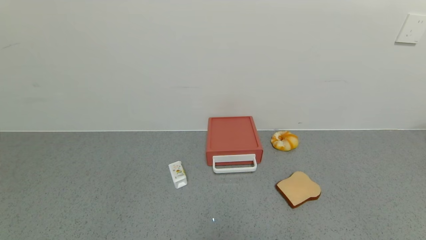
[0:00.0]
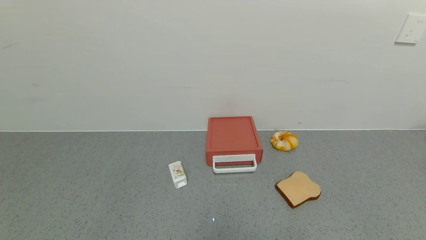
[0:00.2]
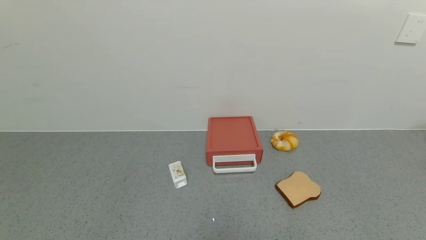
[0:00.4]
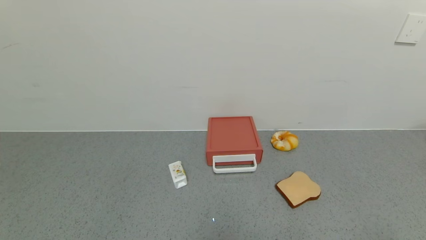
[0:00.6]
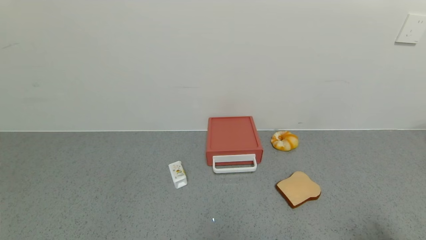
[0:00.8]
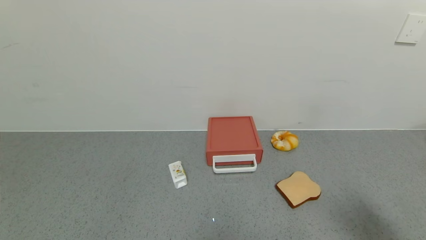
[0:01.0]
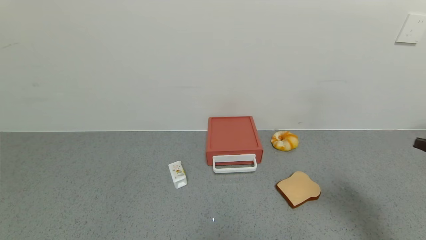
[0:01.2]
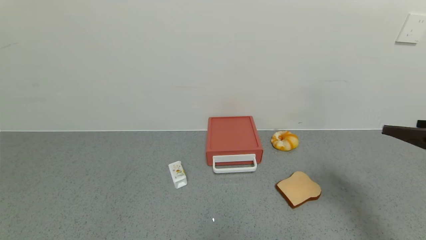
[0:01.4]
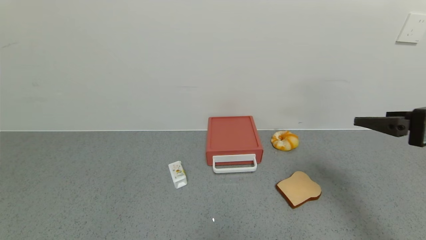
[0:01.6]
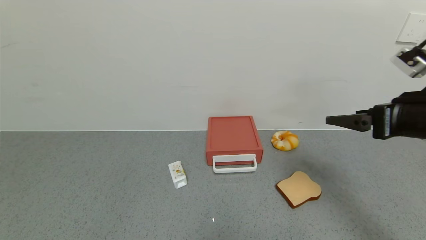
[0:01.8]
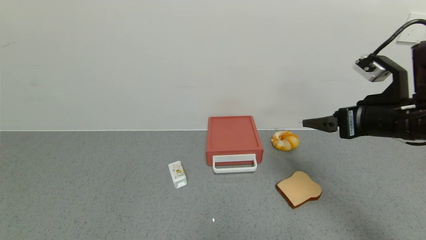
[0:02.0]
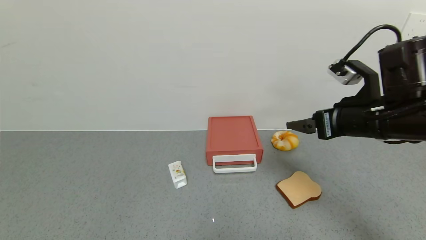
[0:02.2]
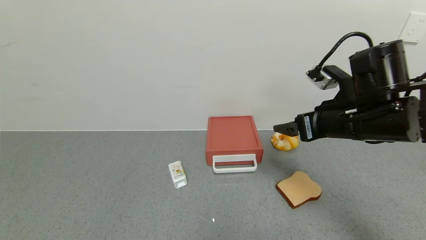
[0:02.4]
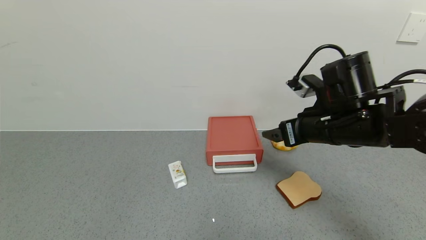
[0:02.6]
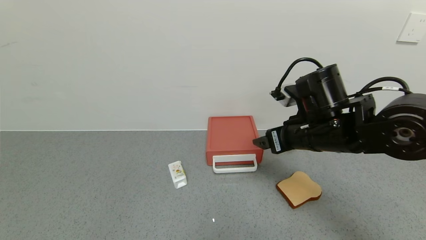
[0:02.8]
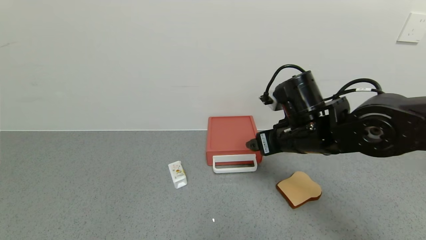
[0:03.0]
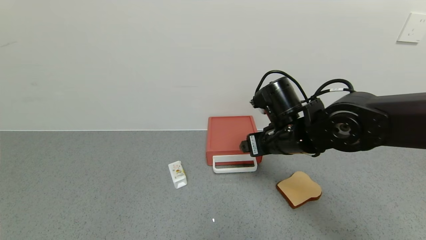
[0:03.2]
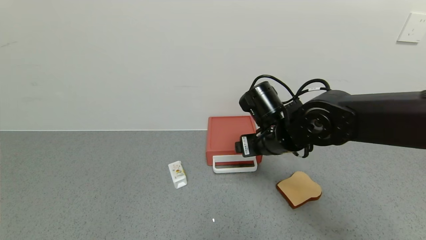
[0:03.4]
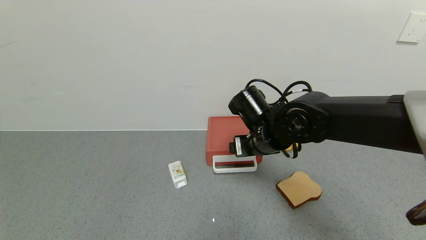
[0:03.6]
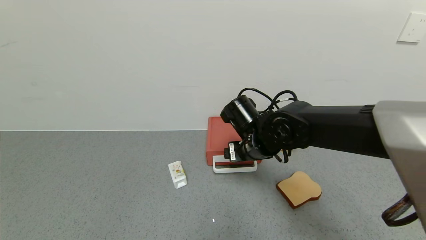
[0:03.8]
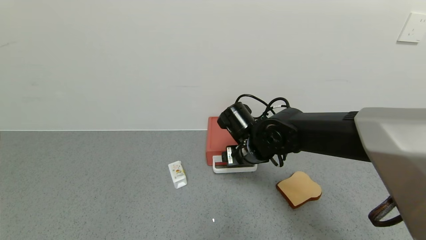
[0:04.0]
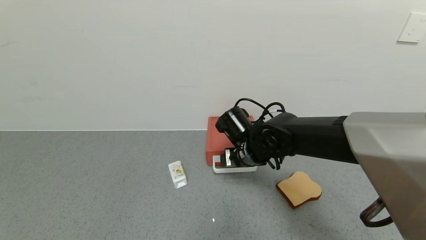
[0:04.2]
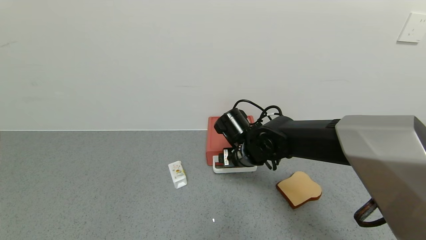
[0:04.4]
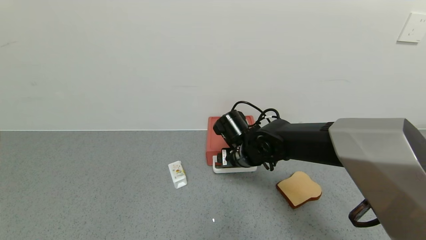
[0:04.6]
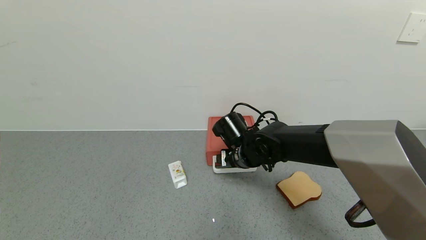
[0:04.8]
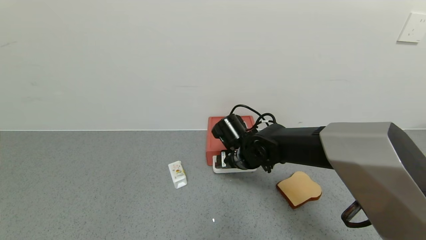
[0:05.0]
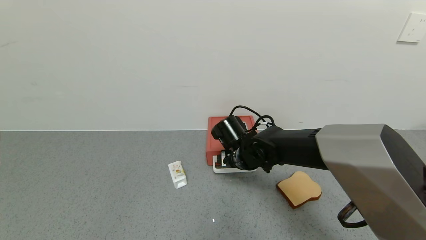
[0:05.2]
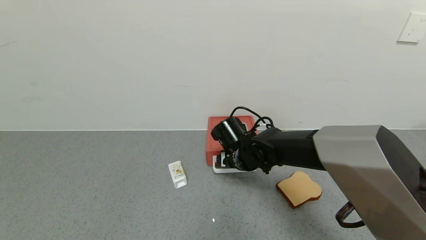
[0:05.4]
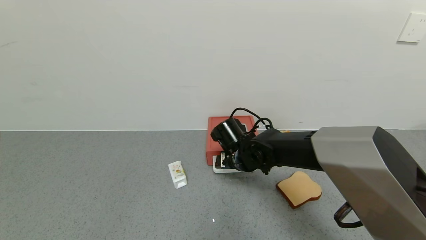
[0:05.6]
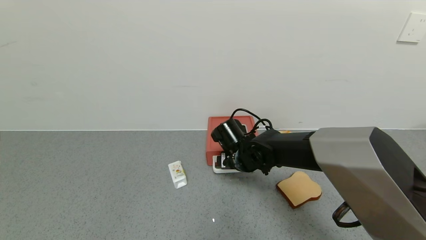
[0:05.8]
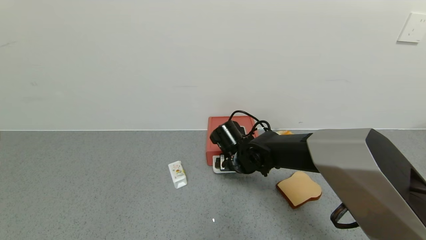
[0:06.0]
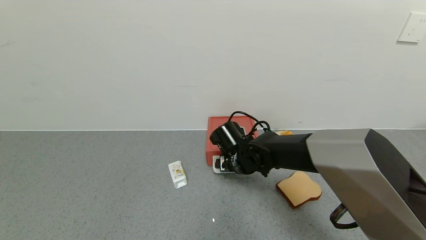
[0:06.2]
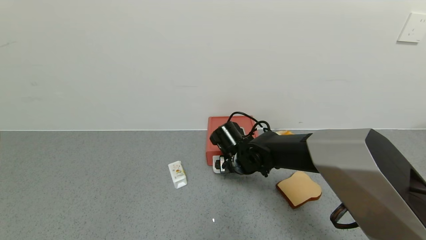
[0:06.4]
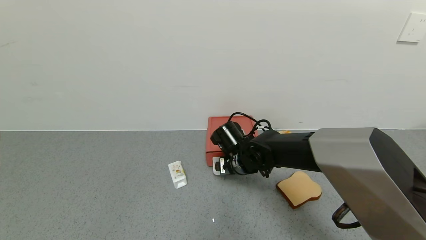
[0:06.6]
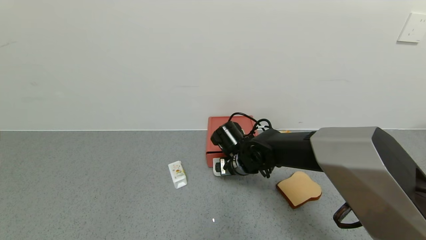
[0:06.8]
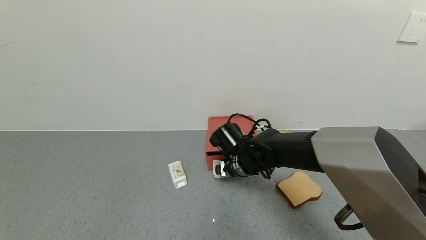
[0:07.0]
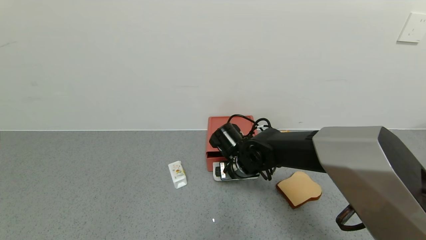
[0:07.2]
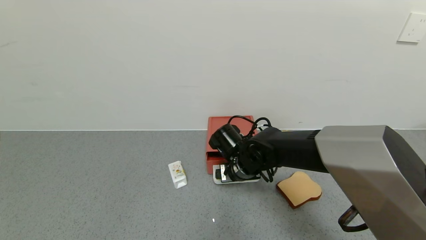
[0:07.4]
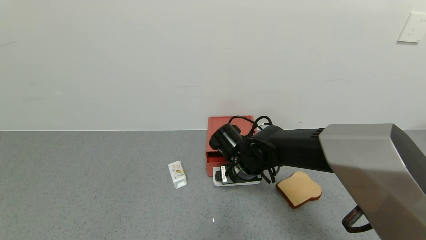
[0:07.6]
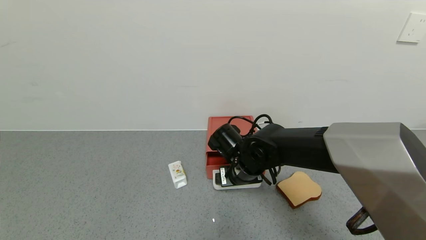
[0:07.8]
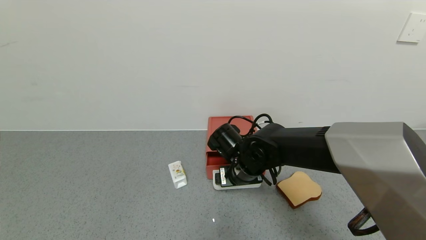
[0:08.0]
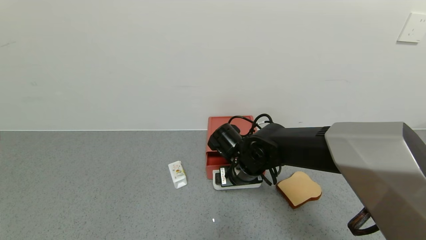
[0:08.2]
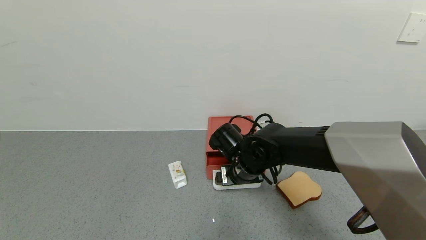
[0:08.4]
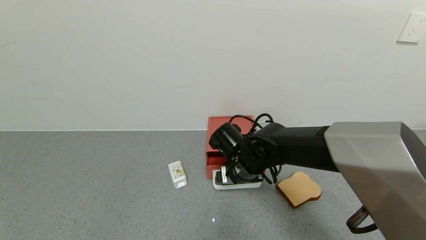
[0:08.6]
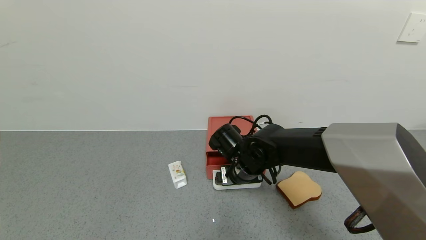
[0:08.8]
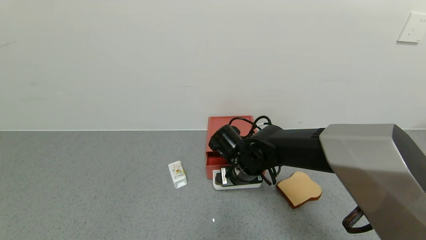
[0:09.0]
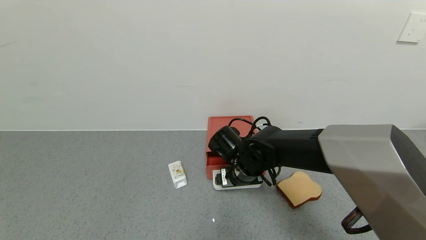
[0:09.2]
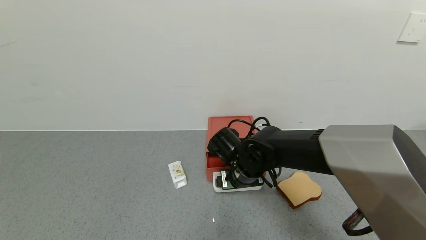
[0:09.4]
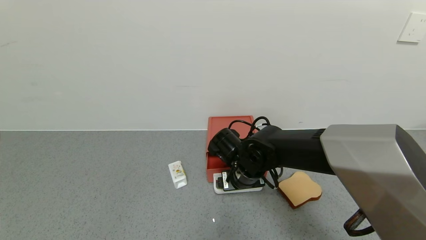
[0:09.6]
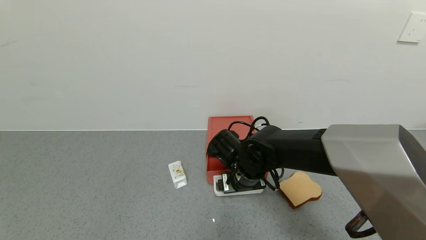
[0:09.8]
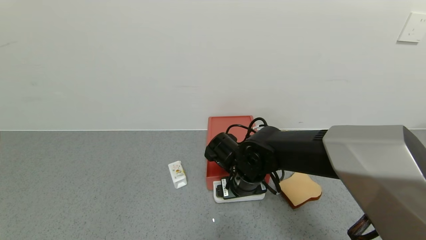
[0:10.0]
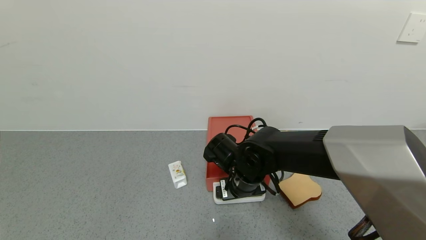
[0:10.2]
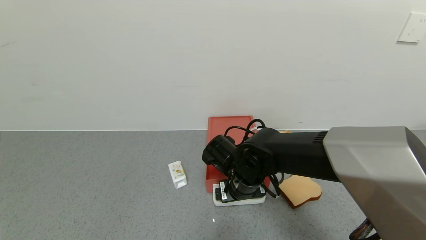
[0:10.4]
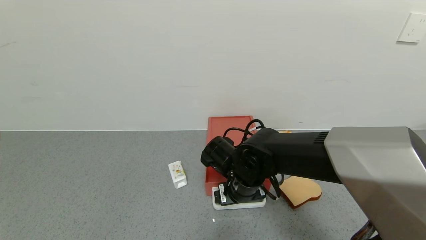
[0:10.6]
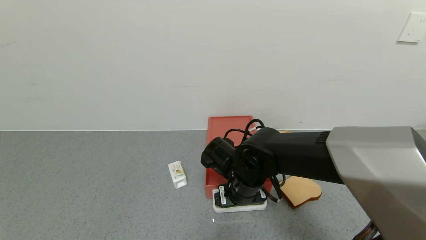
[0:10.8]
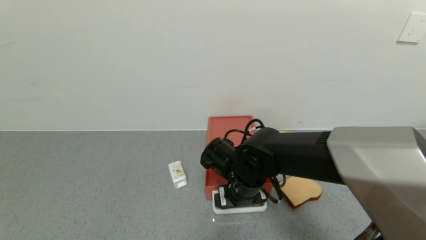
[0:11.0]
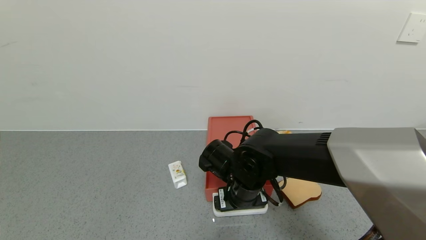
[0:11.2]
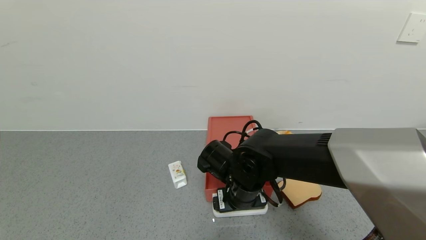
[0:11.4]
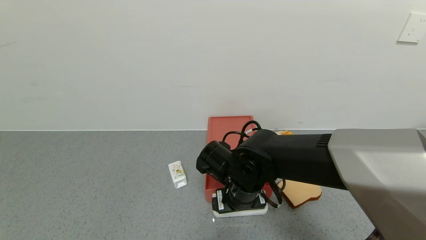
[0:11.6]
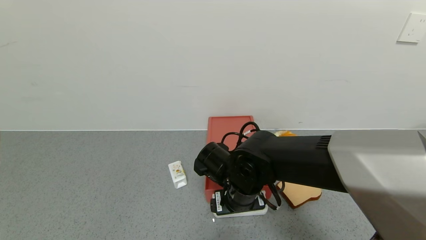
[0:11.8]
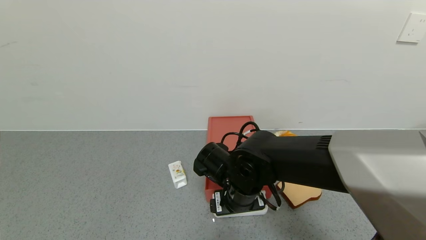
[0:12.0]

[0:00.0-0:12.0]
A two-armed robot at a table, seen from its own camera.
Task of the whole recording: use the gripper to open the drawer and close the red drawer.
0:00.0 to 0:01.6: The right gripper moves forward and upward, about 30 cm.
0:01.6 to 0:03.0: The right gripper heads to the left and forward, covering approximately 20 cm.
0:03.0 to 0:04.4: The right gripper is displaced to the left, downward and forward by roughly 15 cm.
0:04.4 to 0:07.6: The grippers move only a little.
0:07.6 to 0:09.0: Both grippers stay about where they are.
0:09.0 to 0:10.4: There are only small adjustments of the grippers.
0:10.4 to 0:12.0: The grippers stay close to where they were, moving slightly.

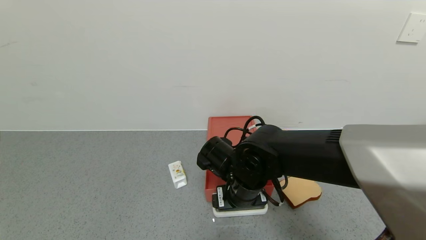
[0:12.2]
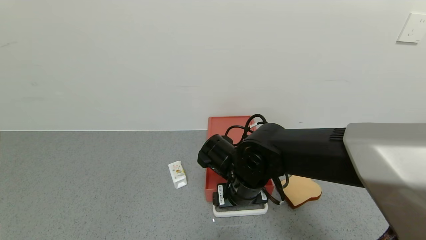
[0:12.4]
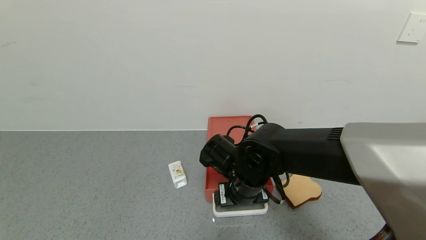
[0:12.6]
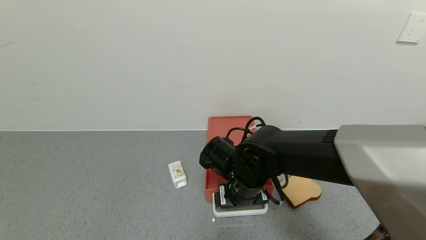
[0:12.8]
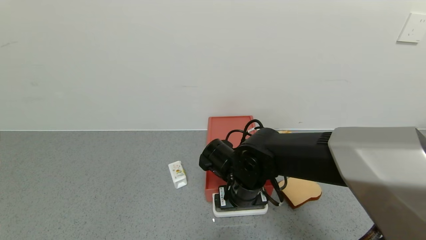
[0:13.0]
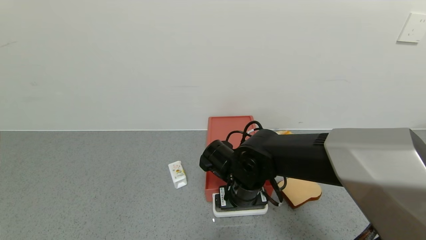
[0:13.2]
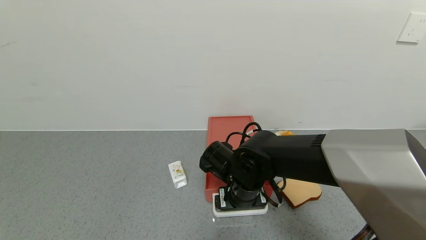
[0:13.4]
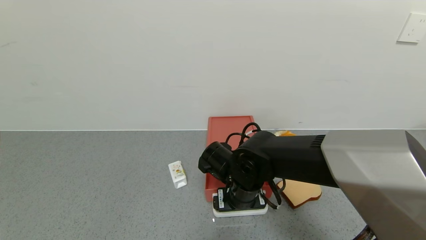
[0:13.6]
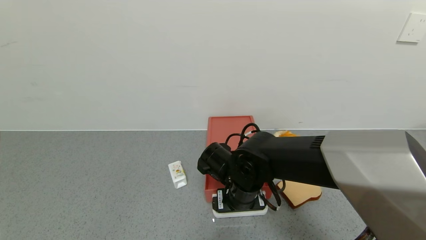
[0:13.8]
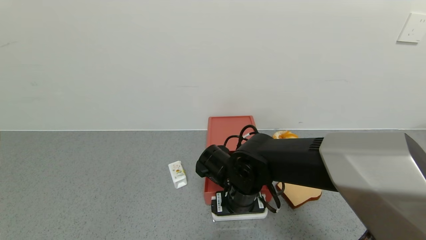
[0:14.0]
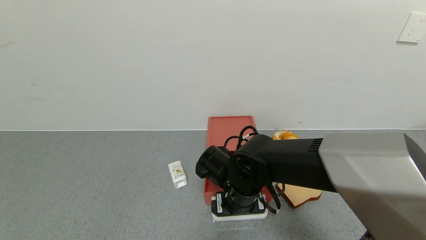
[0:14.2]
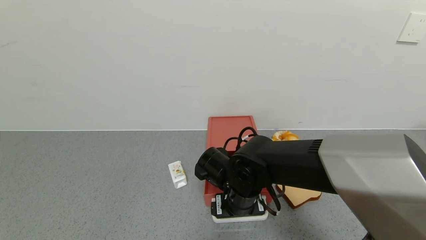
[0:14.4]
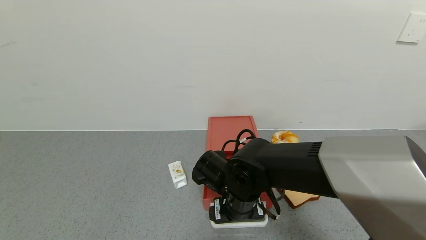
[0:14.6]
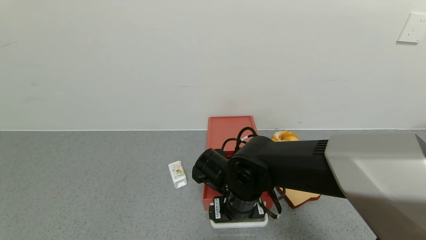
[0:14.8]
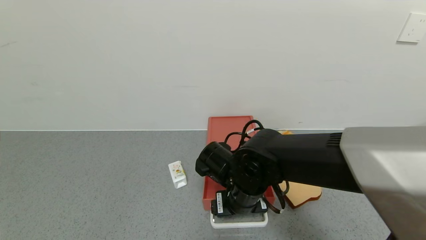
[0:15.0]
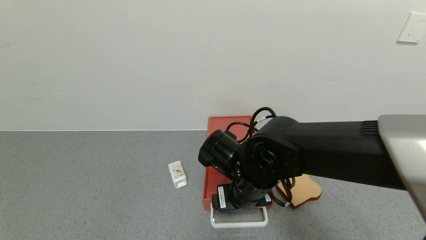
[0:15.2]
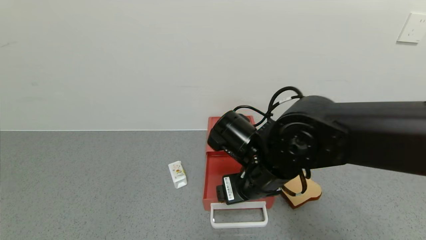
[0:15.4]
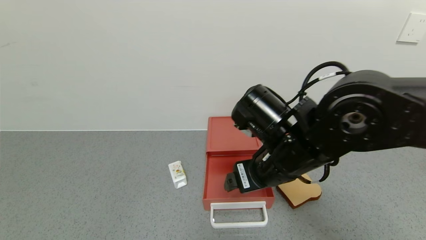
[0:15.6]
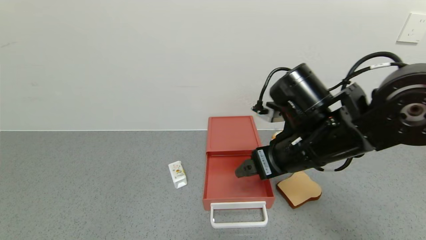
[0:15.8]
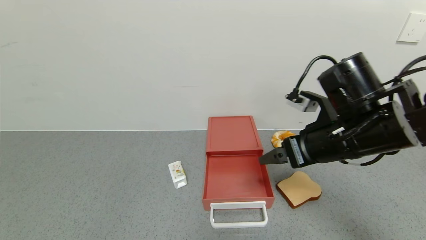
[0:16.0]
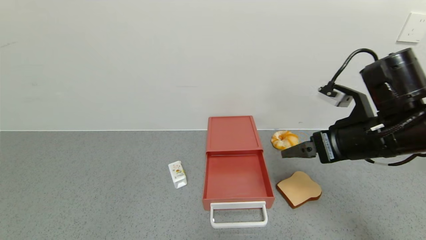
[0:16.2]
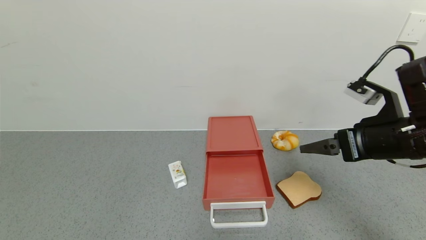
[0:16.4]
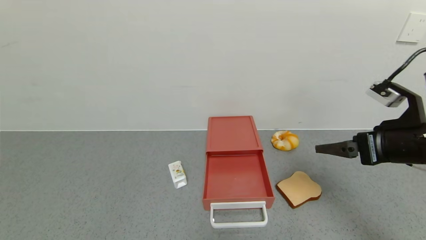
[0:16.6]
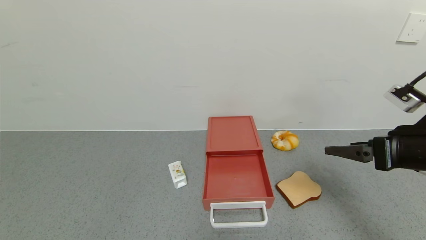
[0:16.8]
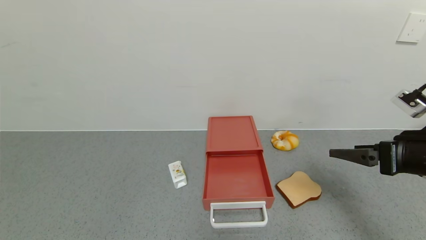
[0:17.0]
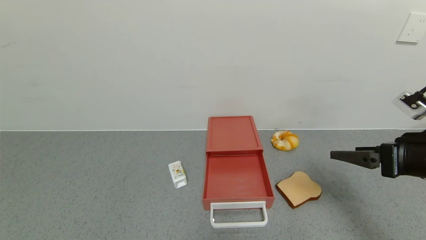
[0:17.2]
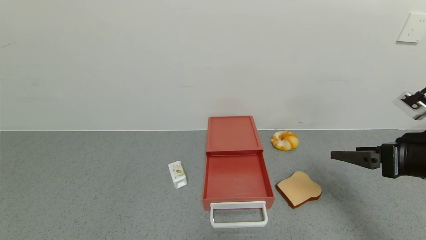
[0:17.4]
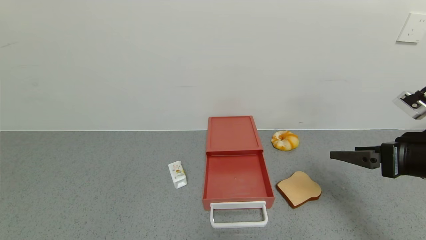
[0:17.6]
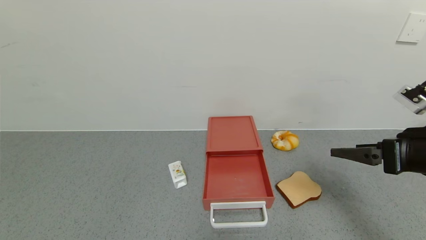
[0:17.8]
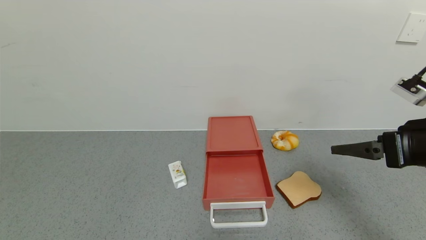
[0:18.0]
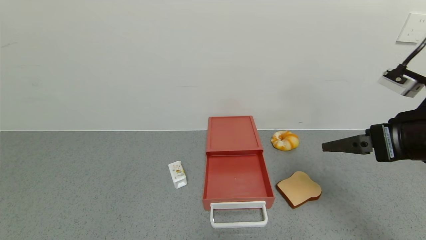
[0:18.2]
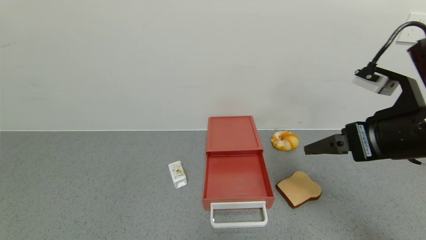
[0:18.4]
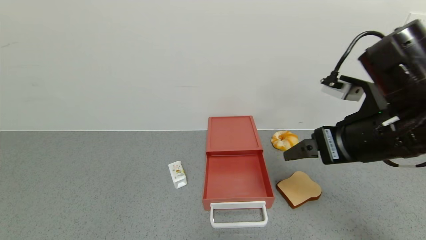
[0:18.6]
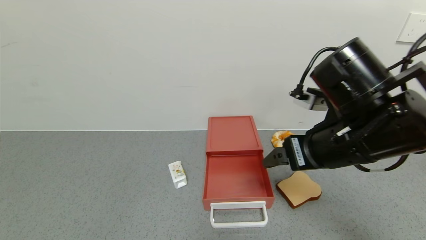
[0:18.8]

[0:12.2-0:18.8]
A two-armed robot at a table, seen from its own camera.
Task of the whole recording: use the gripper to open the drawer and close the red drawer.
Step, 0:12.2 to 0:15.2: Open the red drawer with the right gripper.
0:12.2 to 0:13.8: The grippers make only small movements.
0:13.8 to 0:15.4: The right gripper moves upward, roughly 10 cm.
0:15.4 to 0:17.2: The right gripper is displaced to the right by some 25 cm.
0:17.2 to 0:18.8: The right gripper moves to the left, approximately 15 cm.
